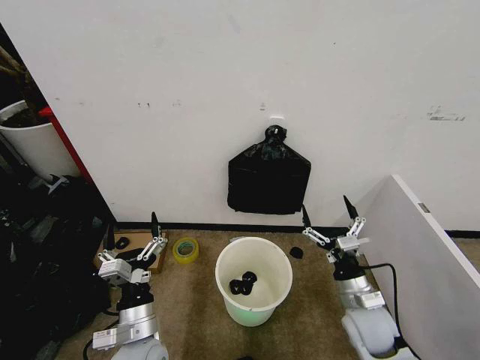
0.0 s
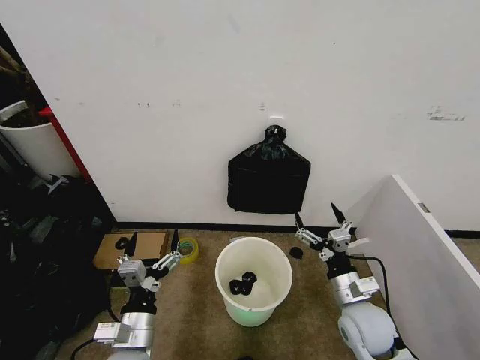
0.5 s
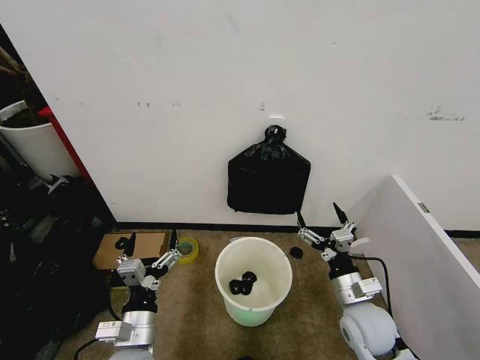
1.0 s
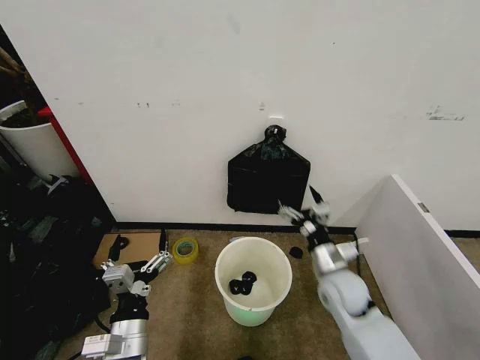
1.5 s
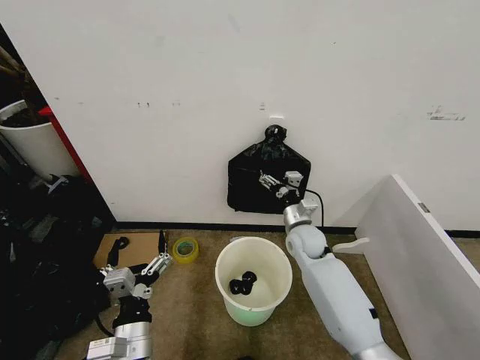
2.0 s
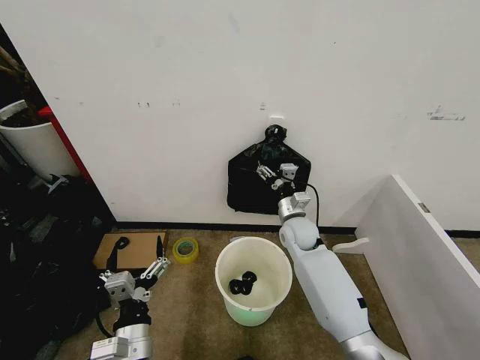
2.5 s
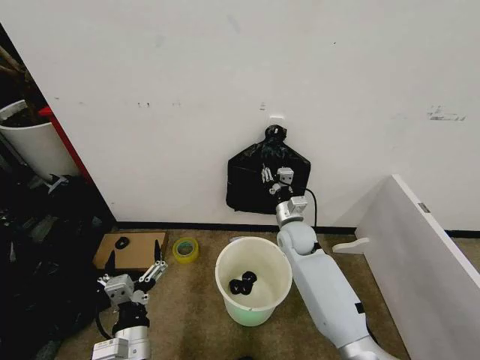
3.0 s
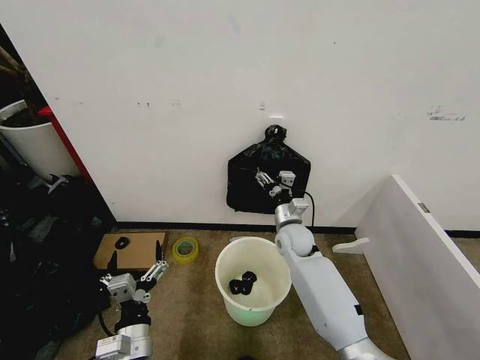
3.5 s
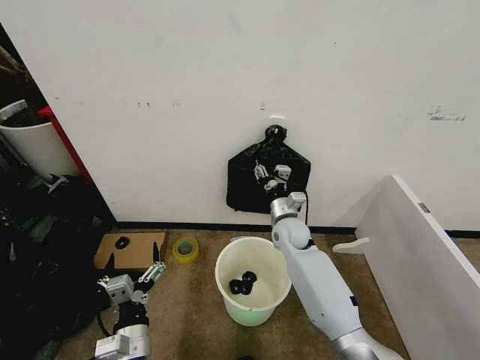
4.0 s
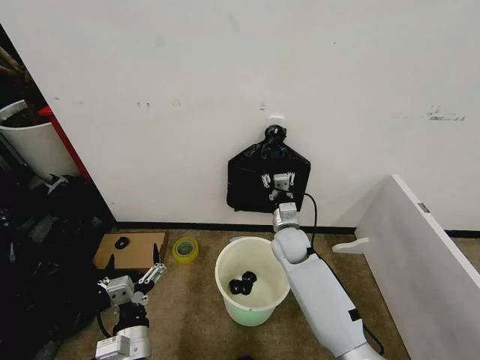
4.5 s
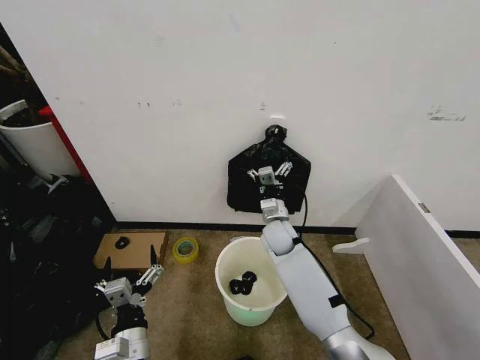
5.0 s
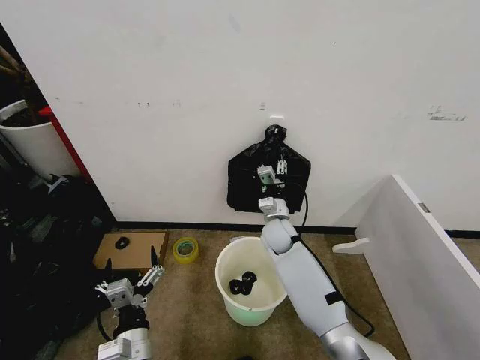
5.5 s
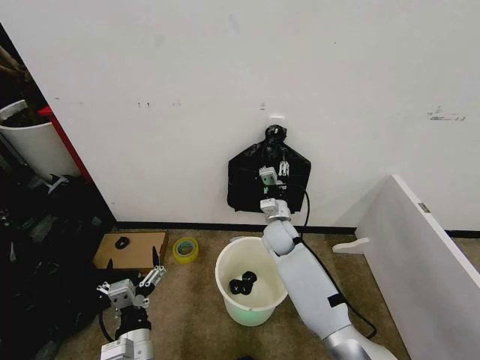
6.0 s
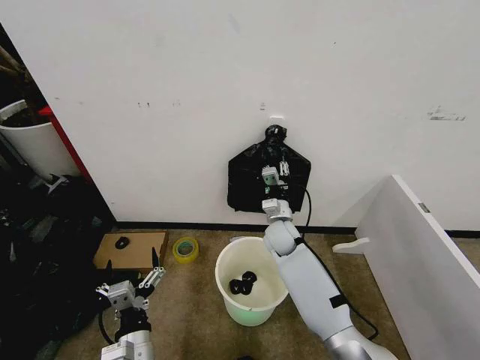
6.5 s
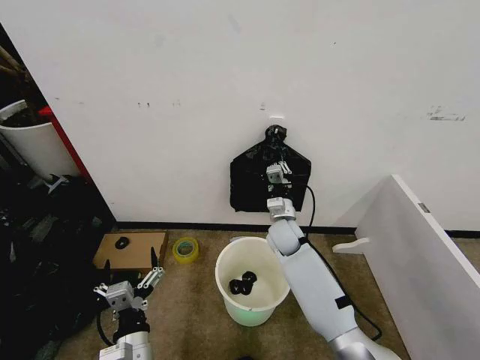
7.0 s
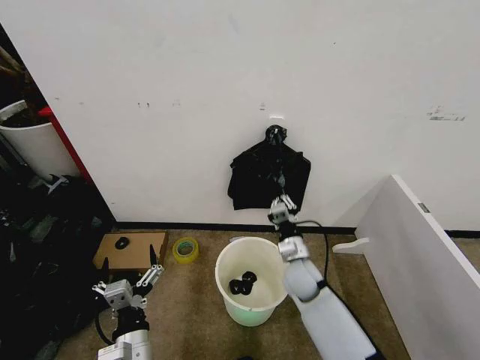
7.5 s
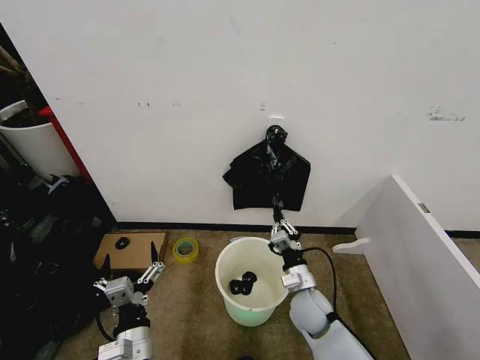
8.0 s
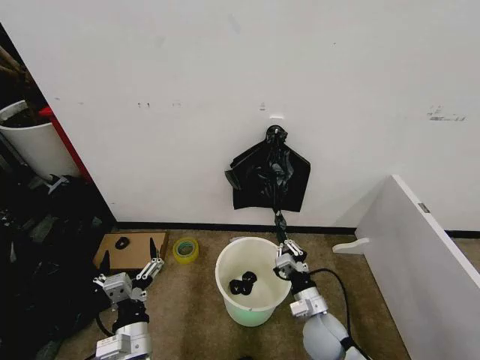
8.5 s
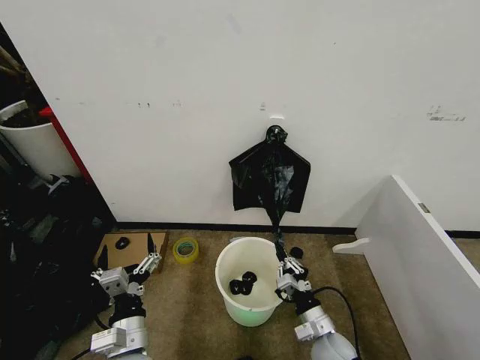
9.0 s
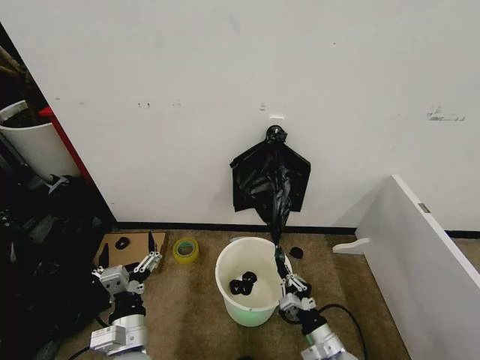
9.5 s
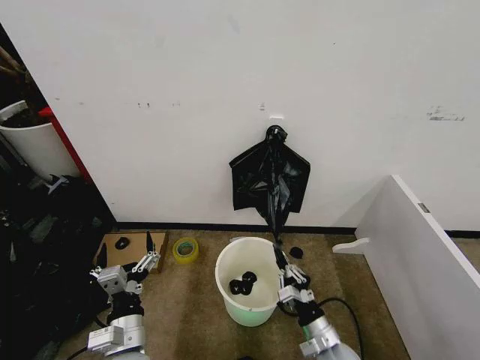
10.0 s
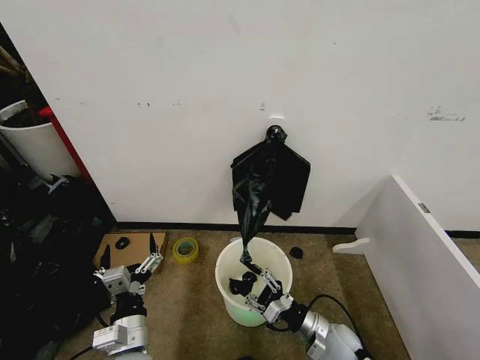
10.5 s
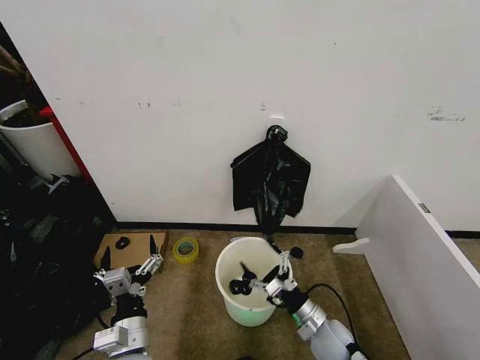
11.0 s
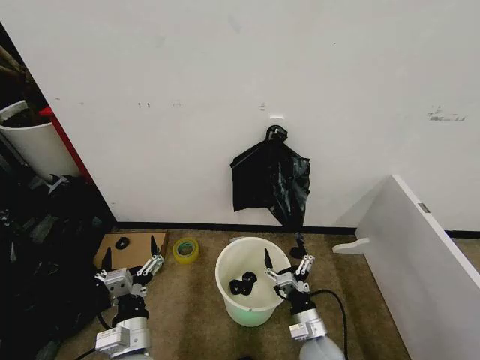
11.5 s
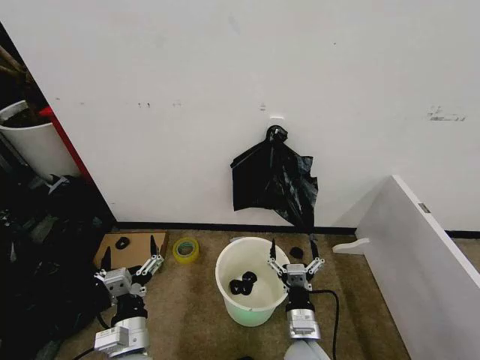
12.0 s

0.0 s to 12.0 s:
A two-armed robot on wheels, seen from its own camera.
Task of the whole recording: Place the garbage bag over the trash bin.
2.0 to 4.0 s: The right gripper closes.
4.0 to 6.0 s: The right gripper opens and closes again.
6.0 to 8.0 s: The right gripper is displaced backward by some 20 cm, and closes.
8.0 to 10.0 s: The right gripper travels backward by roughly 10 cm.
10.0 to 12.0 s: The right gripper is displaced to the left by some 10 cm, and opens its fingers.

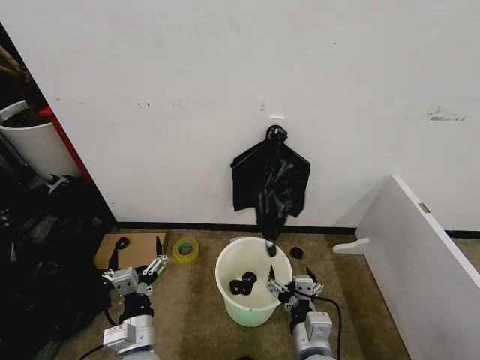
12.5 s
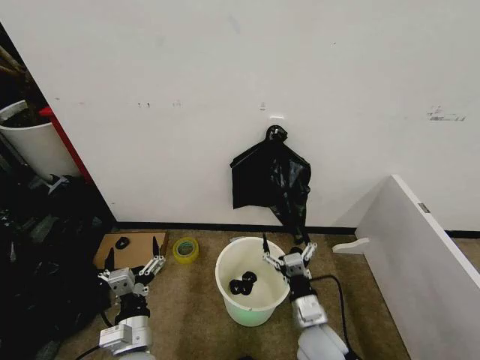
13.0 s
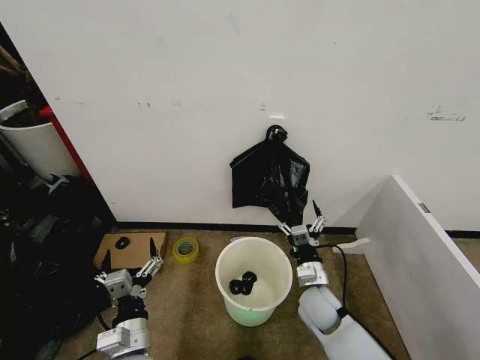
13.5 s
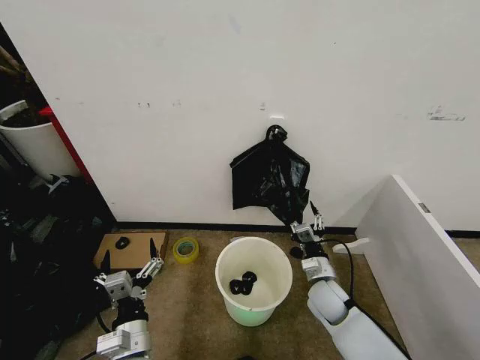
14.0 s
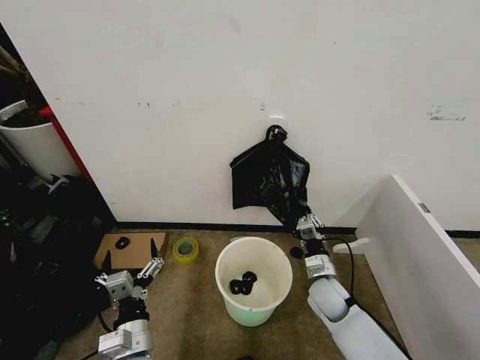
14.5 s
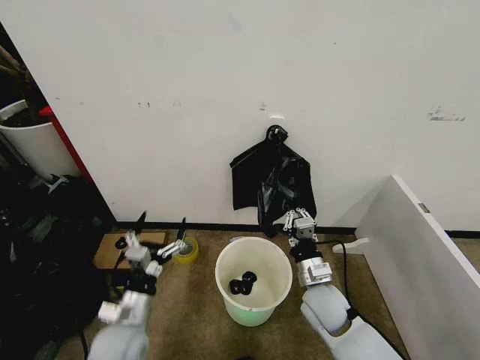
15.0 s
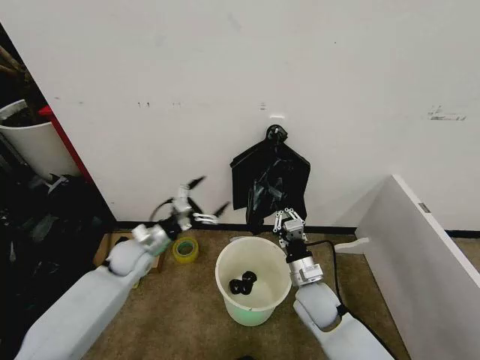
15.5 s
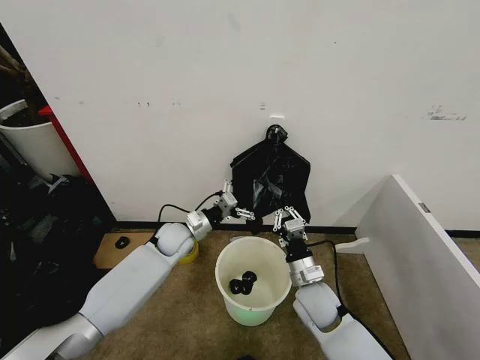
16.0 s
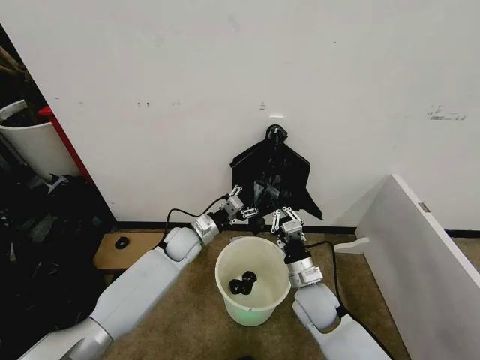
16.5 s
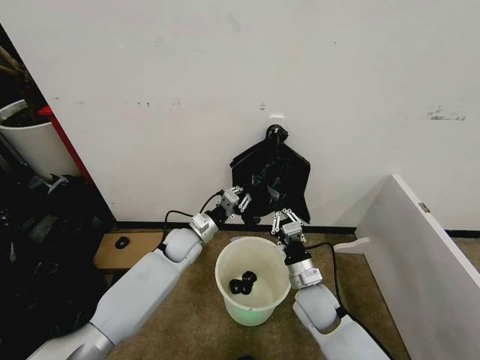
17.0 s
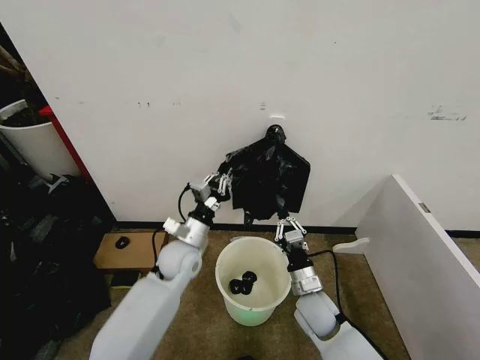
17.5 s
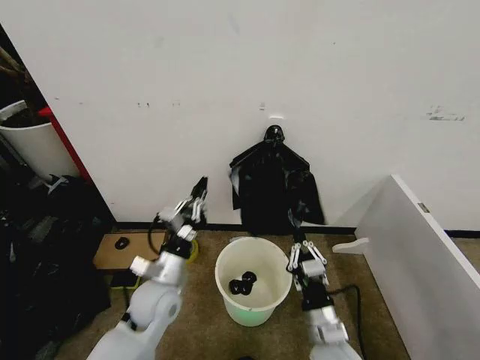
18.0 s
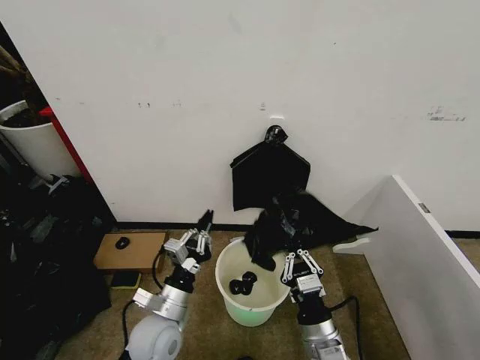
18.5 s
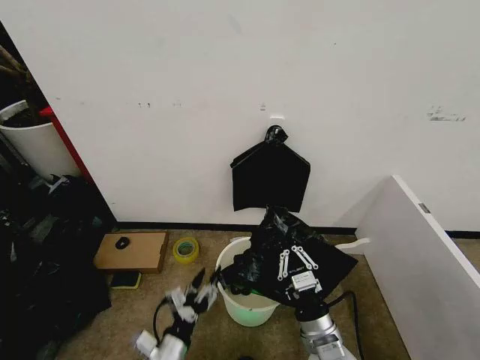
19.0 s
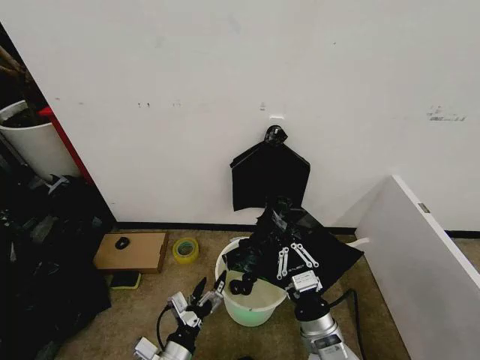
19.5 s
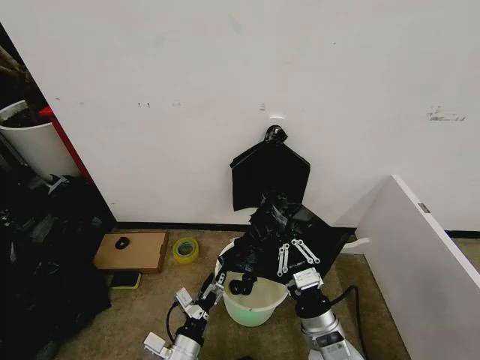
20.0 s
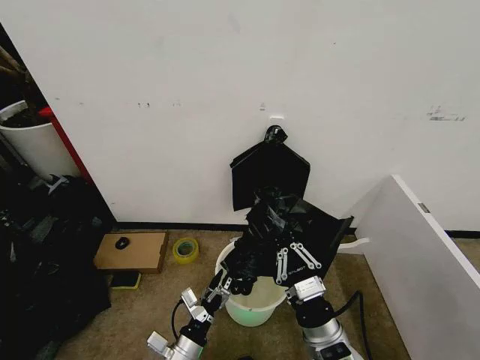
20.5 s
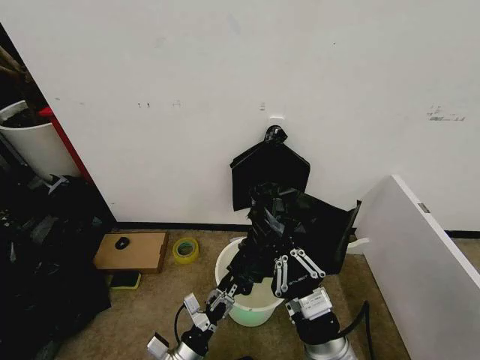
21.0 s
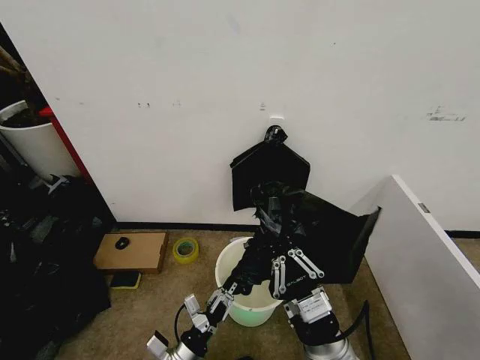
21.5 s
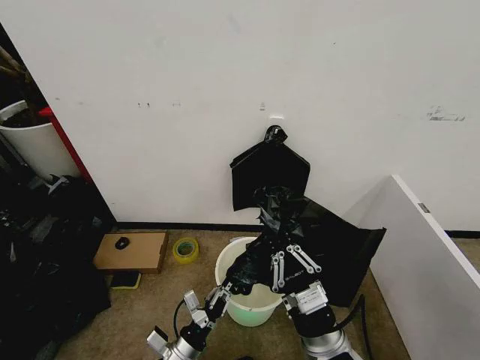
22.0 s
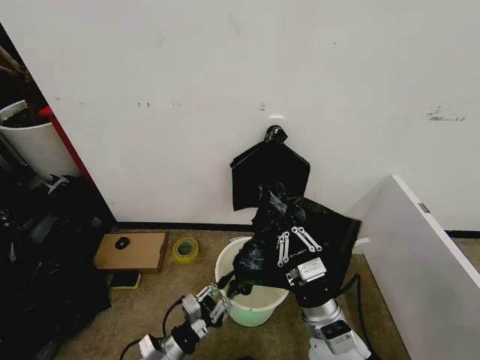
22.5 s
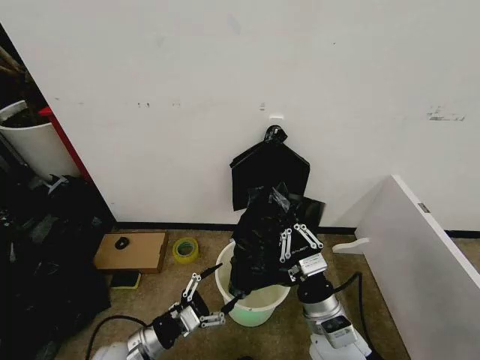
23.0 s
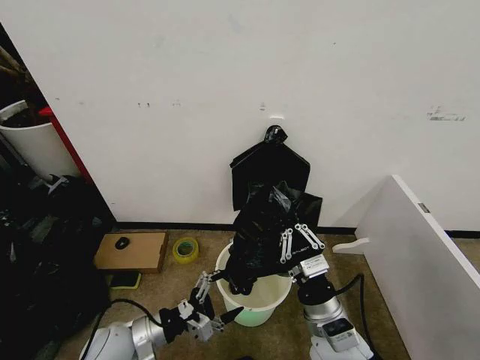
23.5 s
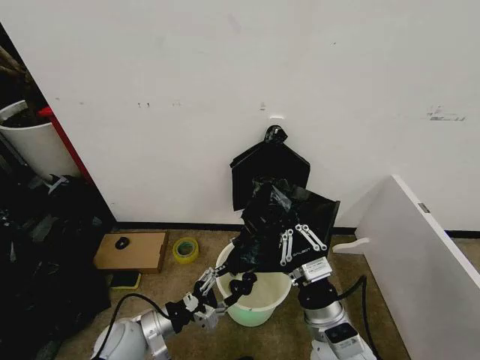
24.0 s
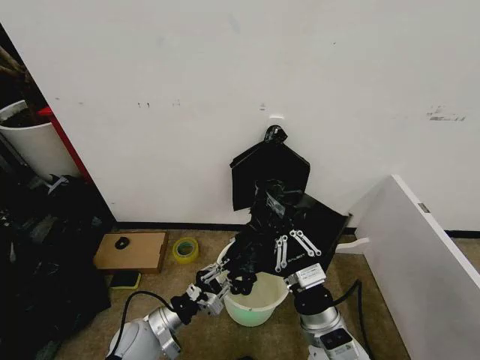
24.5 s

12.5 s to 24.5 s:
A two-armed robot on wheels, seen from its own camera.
Task of the whole recording: Place the garbage bag over the trash bin.
12.5 to 14.5 s: The right gripper shifts roughly 20 cm forward, to the right and downward, and closes its fingers.
14.5 to 16.5 s: The right gripper goes about 5 cm to the left. Meanwhile the left gripper goes some 30 cm forward, and closes up.
16.5 to 18.5 s: The left gripper goes approximately 25 cm backward, and closes up. Meanwhile the right gripper goes roughly 15 cm backward.
18.5 to 20.5 s: The left gripper travels downward and backward by some 10 cm, and opens its fingers.
20.5 to 22.5 s: The left gripper shifts by roughly 5 cm, and closes.
22.5 to 24.5 s: The left gripper shifts roughly 10 cm forward and upward, and opens, then closes once more.

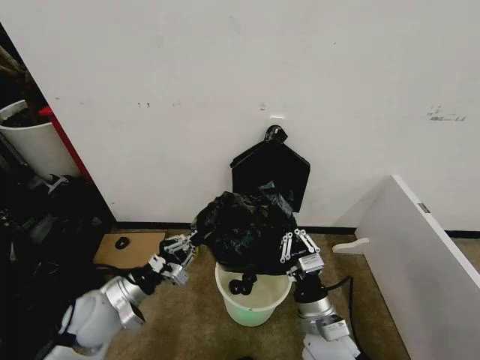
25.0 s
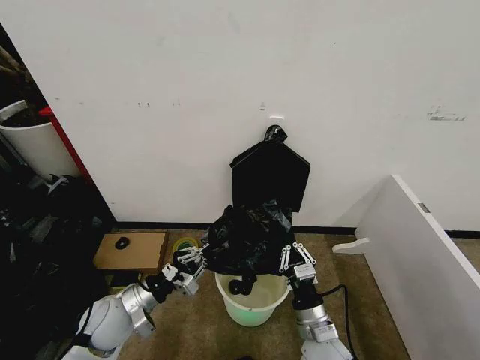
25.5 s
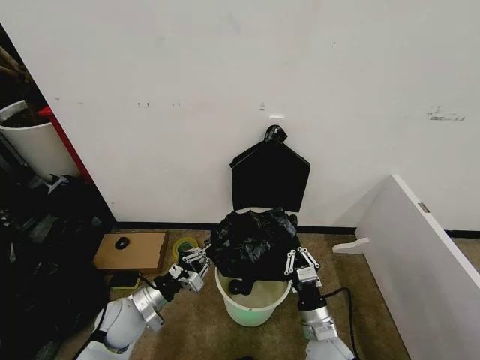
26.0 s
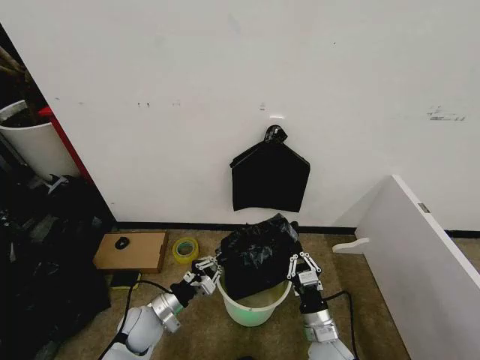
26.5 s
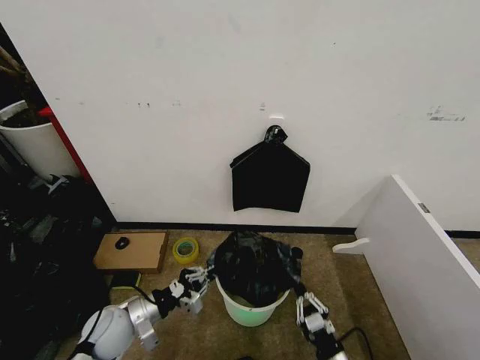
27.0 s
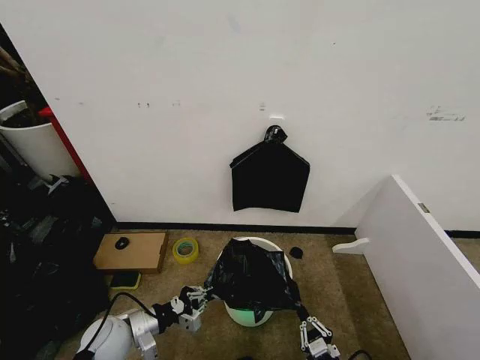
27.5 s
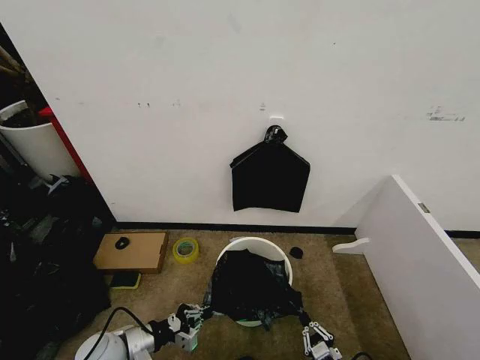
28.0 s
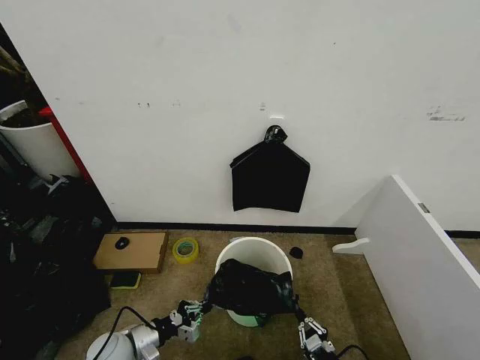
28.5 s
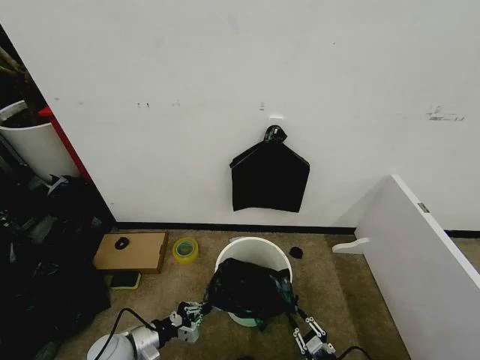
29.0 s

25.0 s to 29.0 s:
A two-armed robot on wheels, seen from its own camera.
Task of the whole recording: Place the garbage bag over the trash bin.
25.0 to 27.0 s: The left gripper is displaced downward by approximately 5 cm; the right gripper heads downward, to the right and backward, covering roughly 20 cm.
27.0 to 29.0 s: The left gripper goes roughly 10 cm downward, while the right gripper moves downward and to the right, roughly 10 cm.
